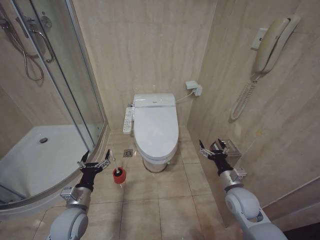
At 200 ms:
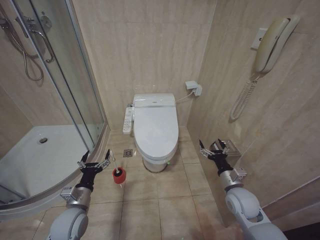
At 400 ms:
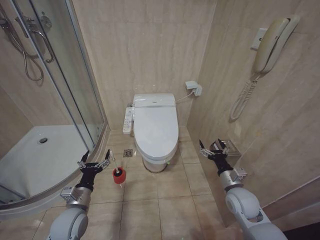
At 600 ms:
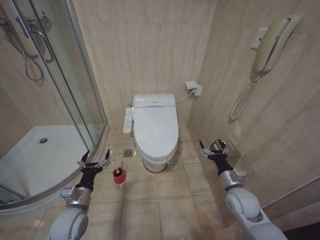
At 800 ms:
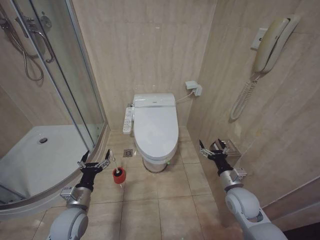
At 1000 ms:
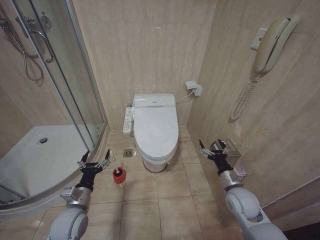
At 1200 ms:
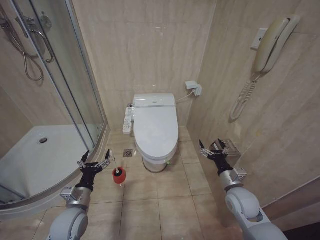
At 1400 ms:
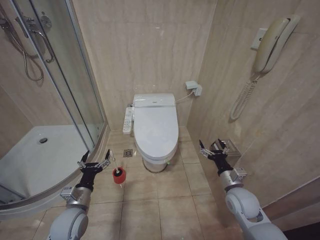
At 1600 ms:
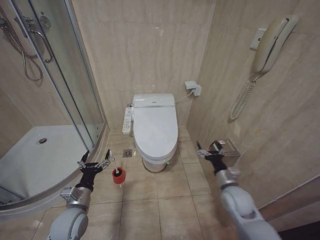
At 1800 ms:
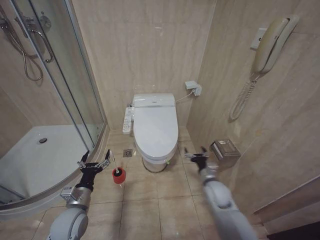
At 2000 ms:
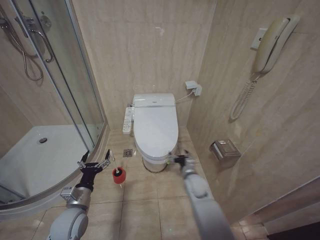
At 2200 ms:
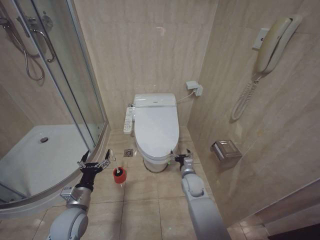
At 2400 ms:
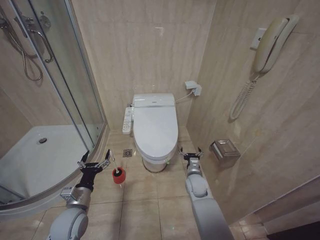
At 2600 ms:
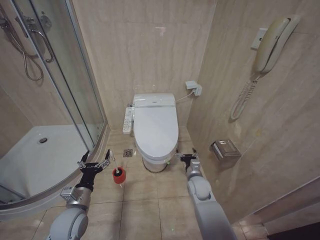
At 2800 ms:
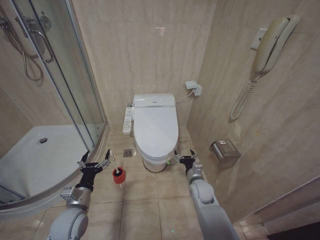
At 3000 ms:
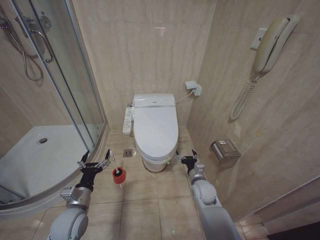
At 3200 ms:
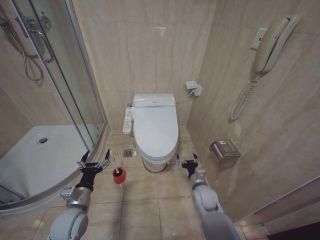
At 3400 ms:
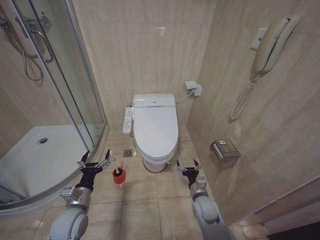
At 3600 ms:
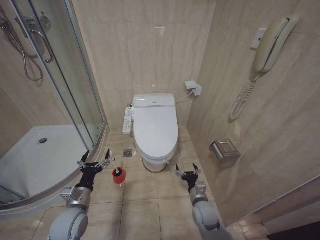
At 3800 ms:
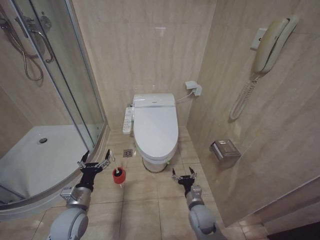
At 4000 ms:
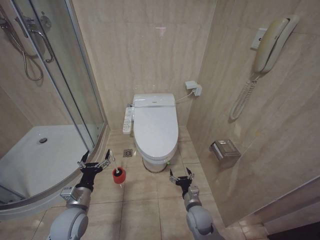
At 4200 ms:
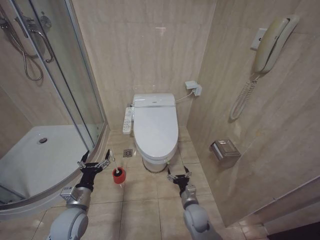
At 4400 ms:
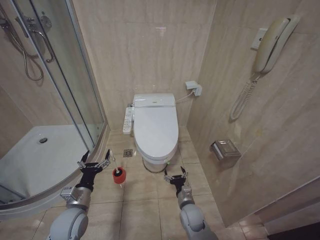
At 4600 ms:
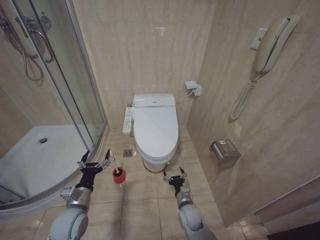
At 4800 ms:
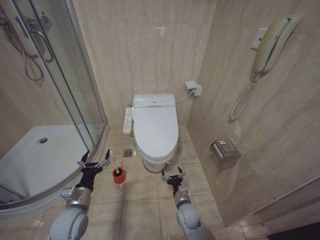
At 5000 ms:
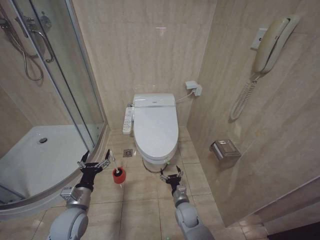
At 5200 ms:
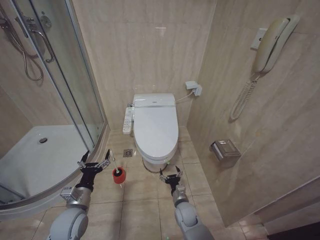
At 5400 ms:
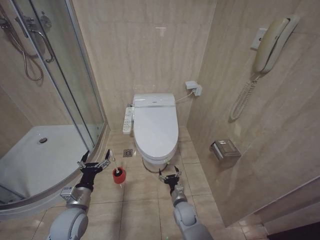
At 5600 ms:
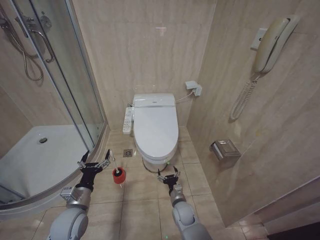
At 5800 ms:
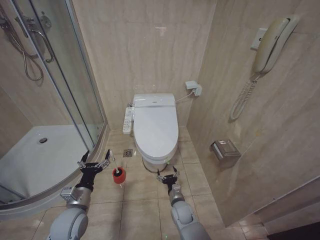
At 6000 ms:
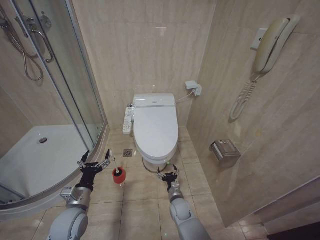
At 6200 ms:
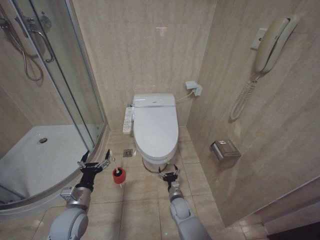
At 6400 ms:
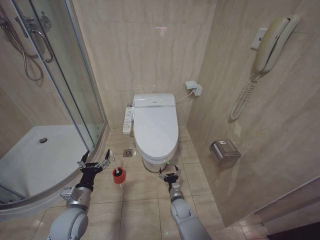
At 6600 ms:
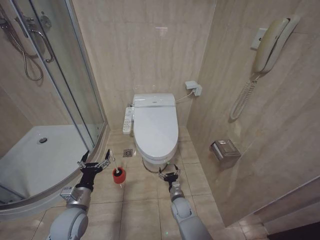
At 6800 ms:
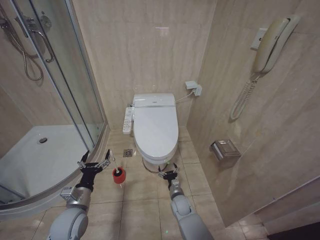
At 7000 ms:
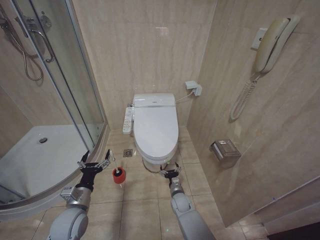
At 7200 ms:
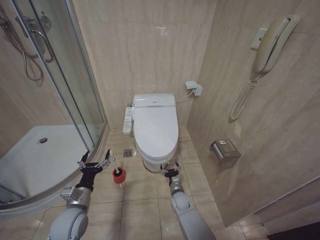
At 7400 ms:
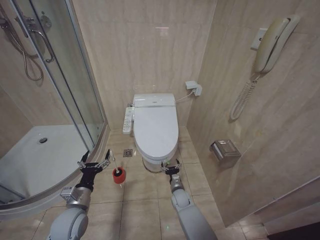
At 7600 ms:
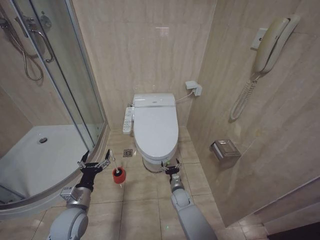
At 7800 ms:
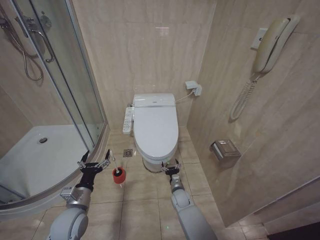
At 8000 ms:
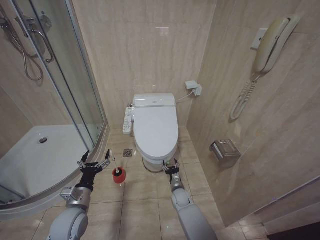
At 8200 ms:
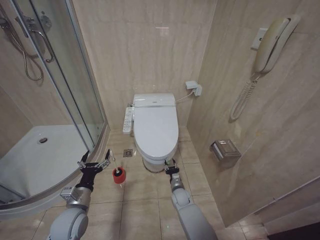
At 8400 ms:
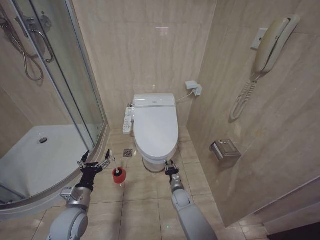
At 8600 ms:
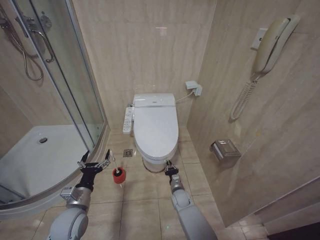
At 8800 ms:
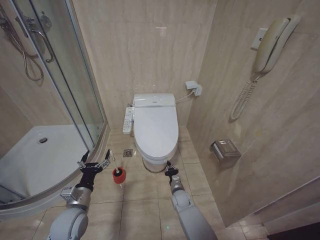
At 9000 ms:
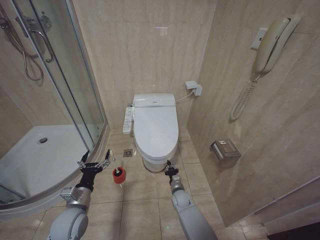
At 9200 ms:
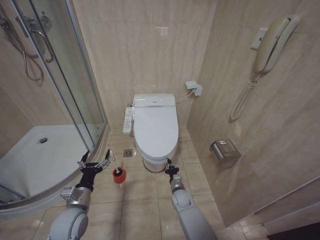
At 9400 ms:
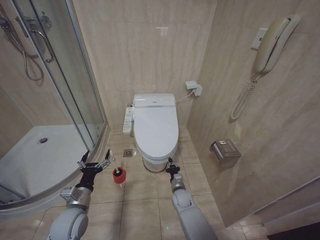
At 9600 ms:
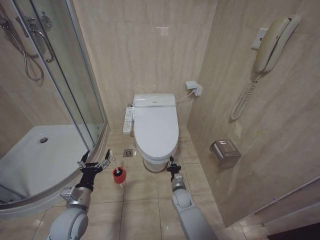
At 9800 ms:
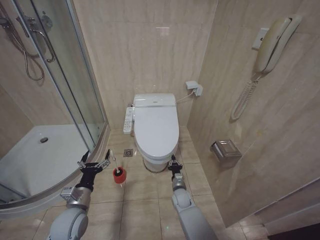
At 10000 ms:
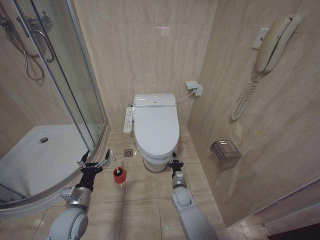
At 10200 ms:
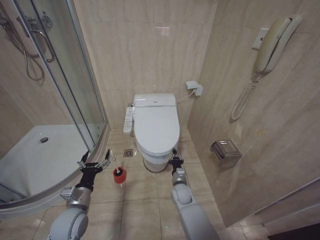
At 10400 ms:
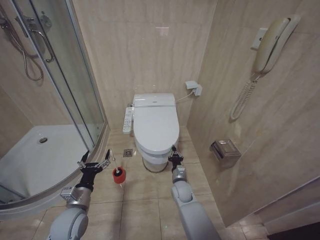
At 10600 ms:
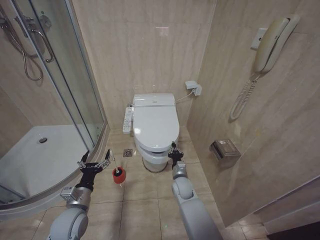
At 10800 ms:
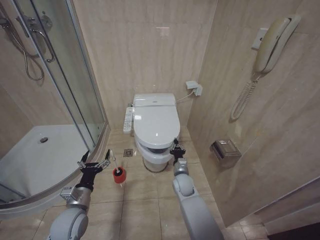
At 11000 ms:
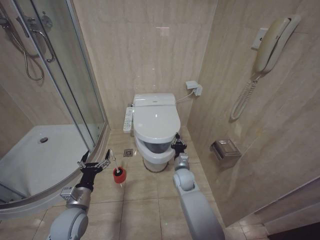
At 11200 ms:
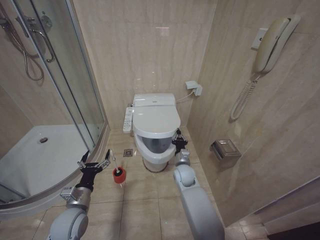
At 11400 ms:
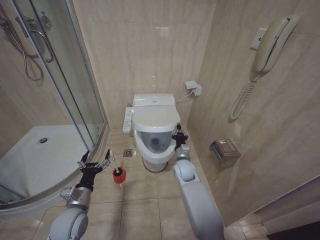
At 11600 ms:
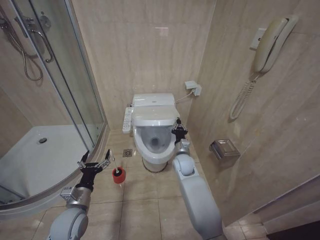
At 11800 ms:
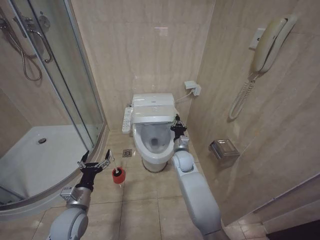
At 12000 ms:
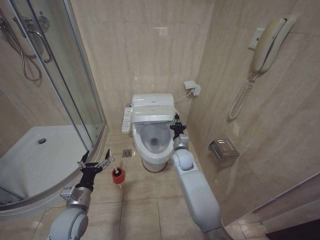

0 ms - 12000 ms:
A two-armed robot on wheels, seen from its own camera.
Task of the whole recording: Open the toilet lid, clean the toilet bowl with a toilet brush, close the toilet lid, and flush.
1600 ms - 3000 ms: The right gripper is displaced to the left, forward and downward by approximately 15 cm.
3000 ms - 4400 ms: The right gripper is displaced downward, backward and to the left by about 10 cm.
4400 ms - 6000 ms: The right gripper moves some 5 cm.
6000 ms - 7600 ms: The right gripper heads forward, covering about 5 cm.
9000 ms - 10400 ms: The right gripper shifts about 10 cm upward.
10400 ms - 12000 ms: The right gripper shifts some 15 cm upward and forward.

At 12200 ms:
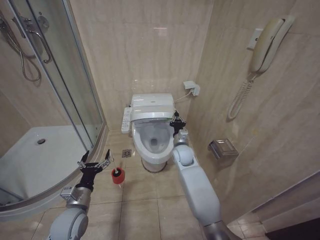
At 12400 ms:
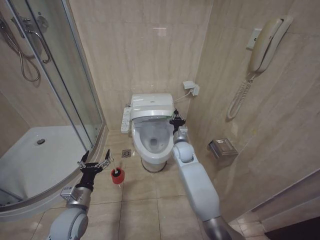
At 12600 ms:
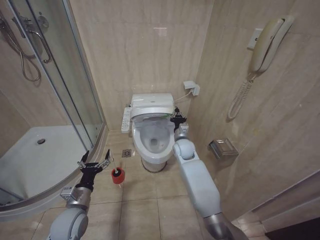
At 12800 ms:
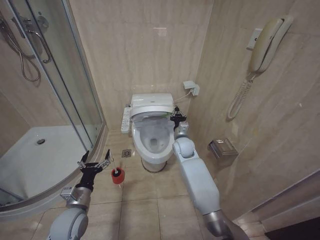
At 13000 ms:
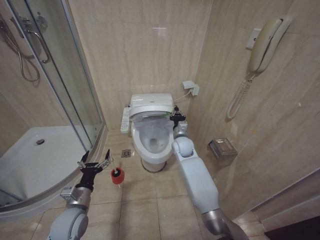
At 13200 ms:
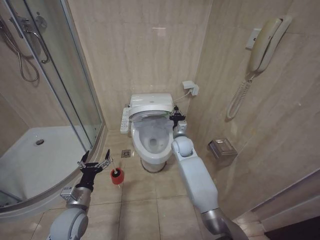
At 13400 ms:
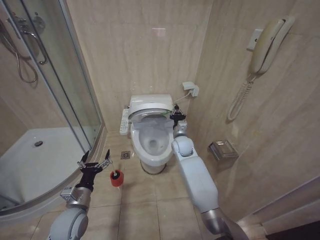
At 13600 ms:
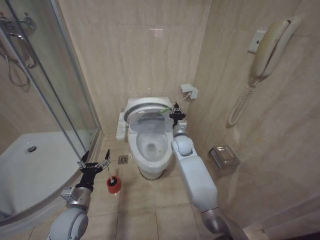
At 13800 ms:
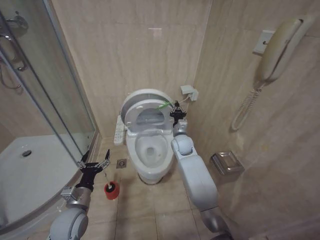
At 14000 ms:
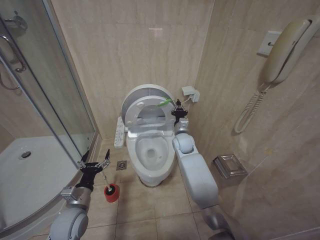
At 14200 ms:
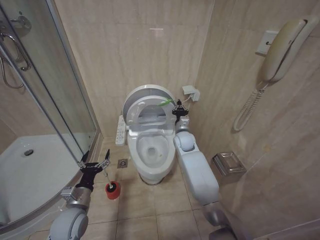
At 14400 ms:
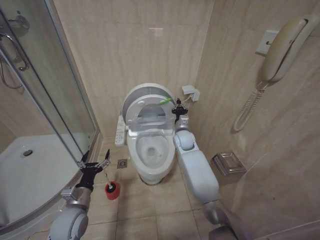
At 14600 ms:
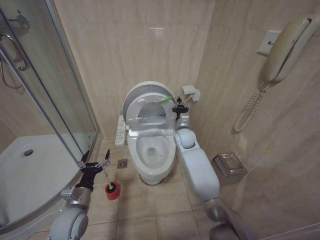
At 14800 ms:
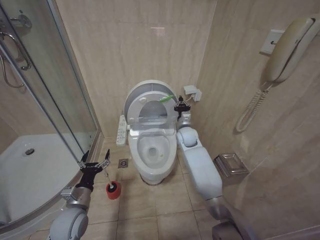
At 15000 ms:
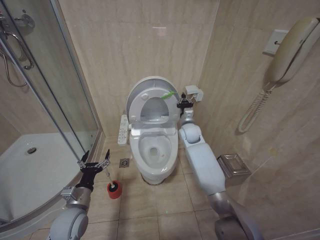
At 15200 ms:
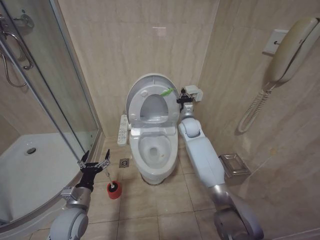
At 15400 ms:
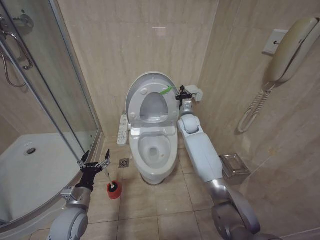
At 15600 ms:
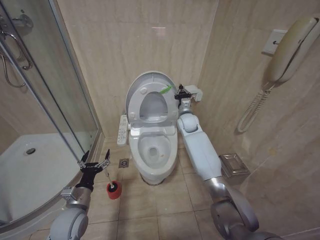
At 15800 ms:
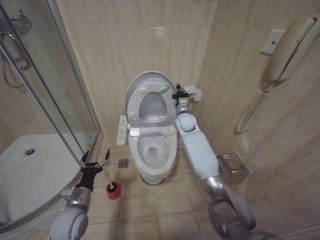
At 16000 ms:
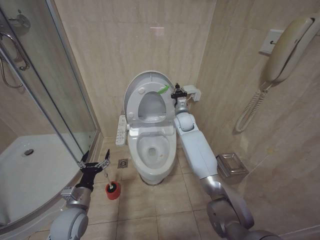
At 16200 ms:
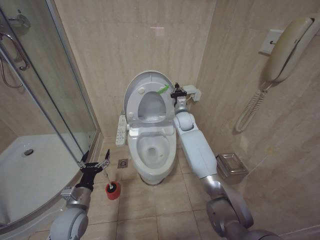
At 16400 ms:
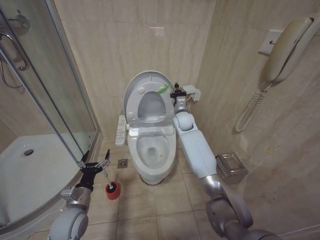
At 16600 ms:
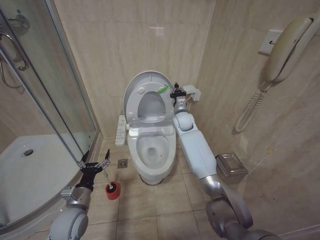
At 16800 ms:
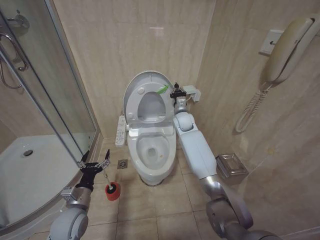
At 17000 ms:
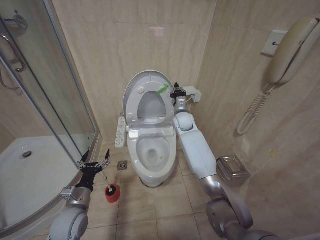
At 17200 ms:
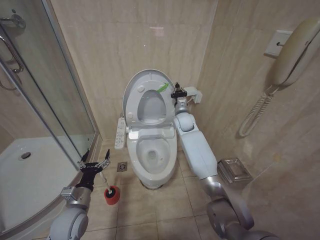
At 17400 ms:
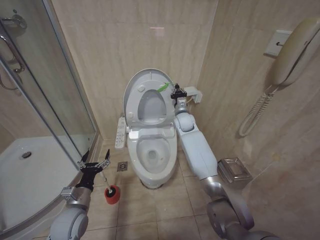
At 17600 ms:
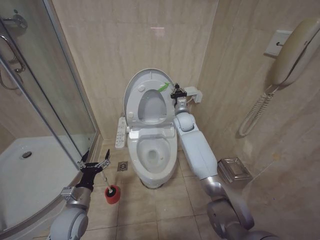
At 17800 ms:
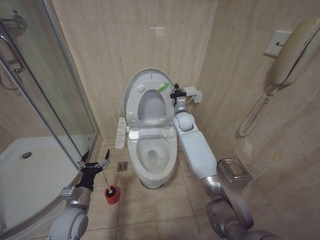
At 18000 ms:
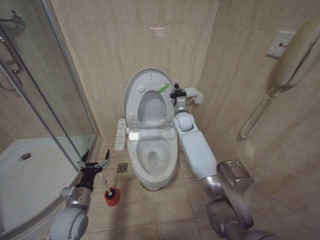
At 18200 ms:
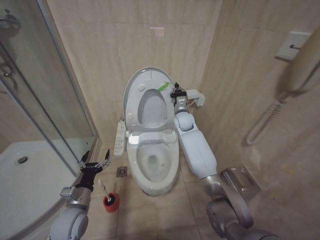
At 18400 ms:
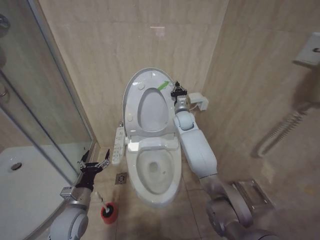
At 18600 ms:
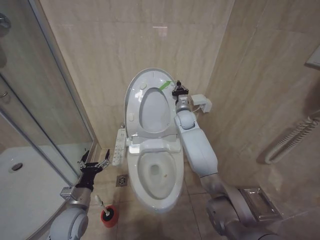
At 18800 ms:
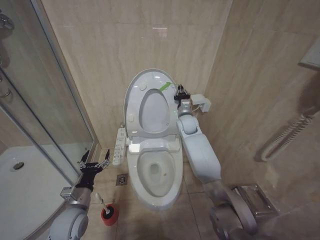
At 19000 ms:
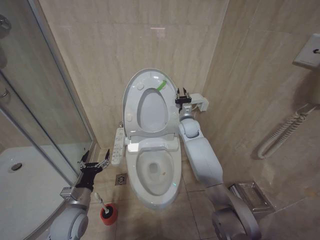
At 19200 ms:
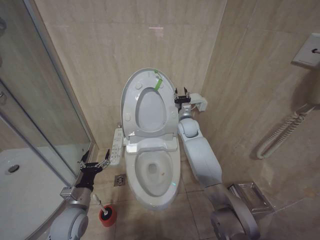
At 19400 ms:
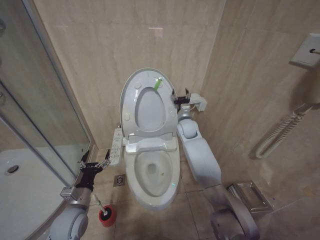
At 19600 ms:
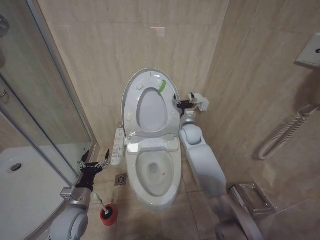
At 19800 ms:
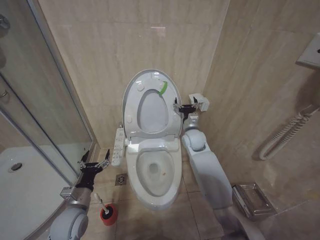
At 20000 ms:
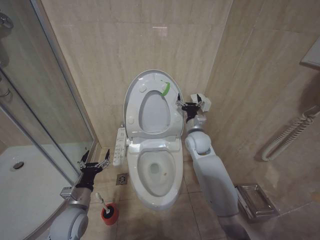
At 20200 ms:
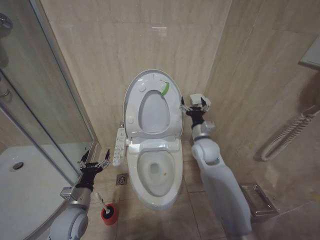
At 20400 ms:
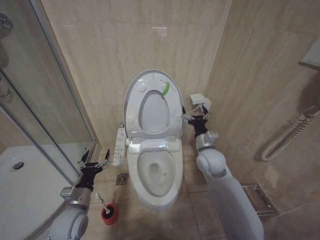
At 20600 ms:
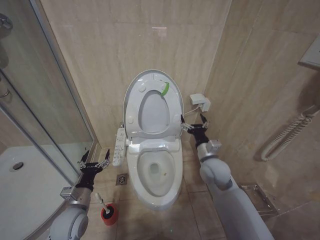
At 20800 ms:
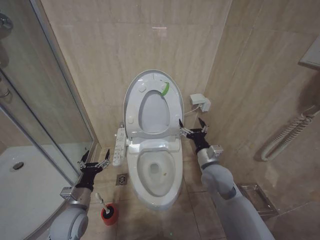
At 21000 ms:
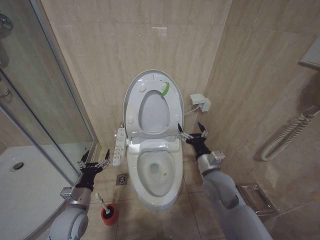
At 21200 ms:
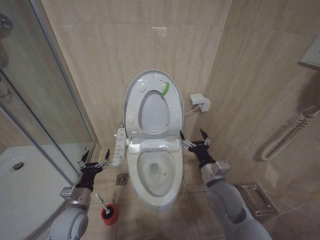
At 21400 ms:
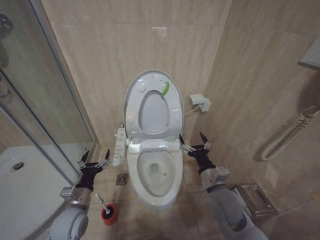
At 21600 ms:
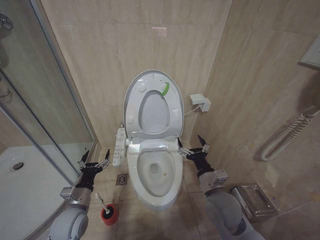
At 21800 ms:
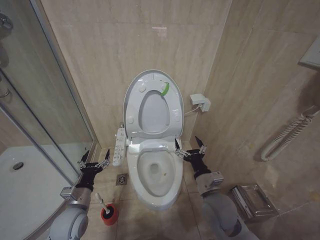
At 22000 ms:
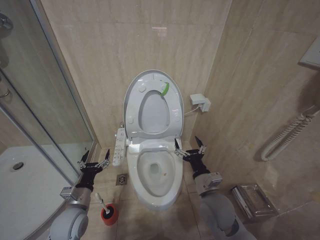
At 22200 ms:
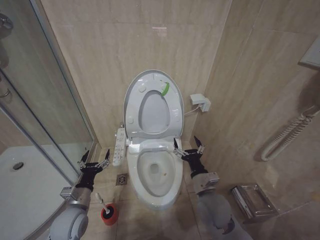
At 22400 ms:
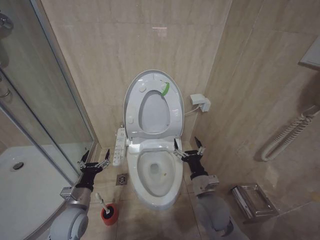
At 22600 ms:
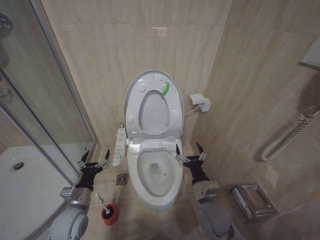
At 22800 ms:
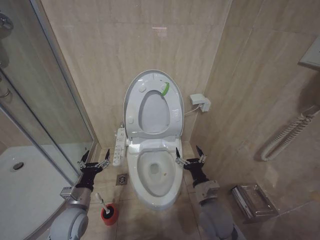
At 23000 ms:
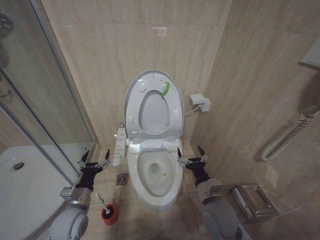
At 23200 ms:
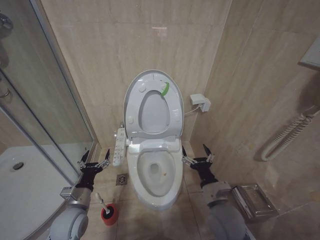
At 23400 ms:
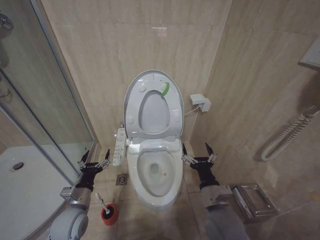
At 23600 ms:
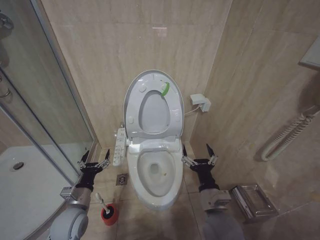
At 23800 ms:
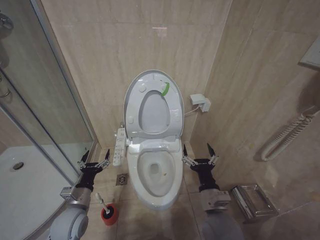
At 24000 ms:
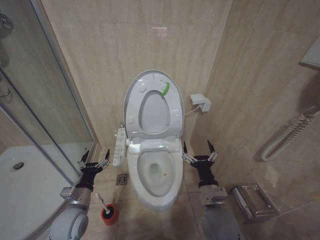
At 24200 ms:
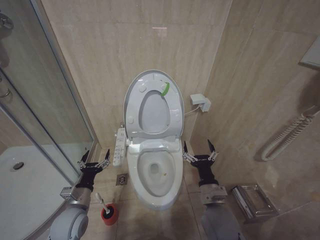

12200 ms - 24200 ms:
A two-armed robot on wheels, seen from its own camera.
Task of the whole recording: Open the toilet lid, clean the toilet bowl with a toilet brush, close the toilet lid, and flush.
12200 ms - 13800 ms: The right gripper changes place by roughly 5 cm.
13800 ms - 15200 ms: The right gripper goes about 5 cm upward.
15200 ms - 16600 ms: The right gripper moves some 5 cm.
16600 ms - 18200 ms: The two grippers keep their place.
18200 ms - 19800 ms: The right gripper travels backward by some 5 cm, and opens up.
19800 ms - 21200 ms: The right gripper moves backward, about 20 cm.
21200 ms - 22600 ms: The right gripper moves downward, approximately 5 cm.
22600 ms - 24200 ms: The grippers stay close to where they were, moving slightly.
